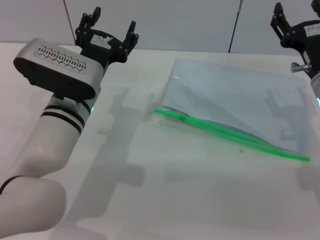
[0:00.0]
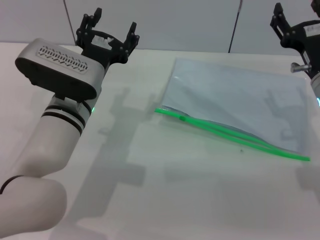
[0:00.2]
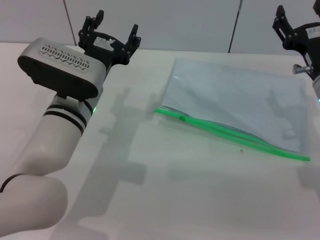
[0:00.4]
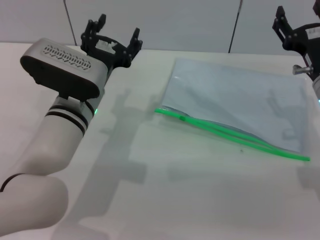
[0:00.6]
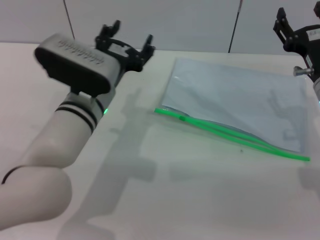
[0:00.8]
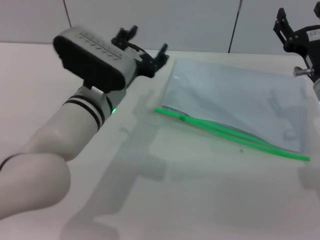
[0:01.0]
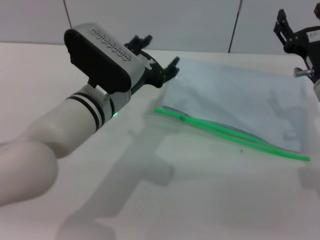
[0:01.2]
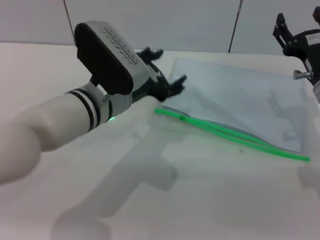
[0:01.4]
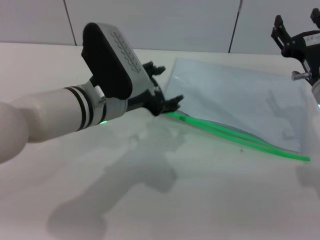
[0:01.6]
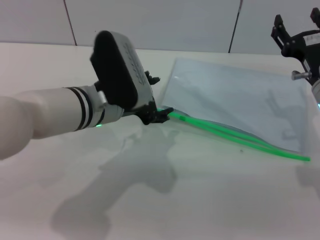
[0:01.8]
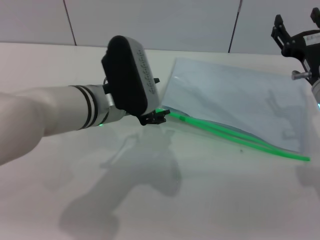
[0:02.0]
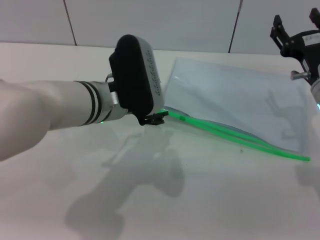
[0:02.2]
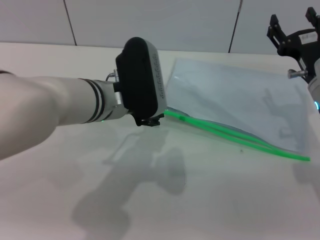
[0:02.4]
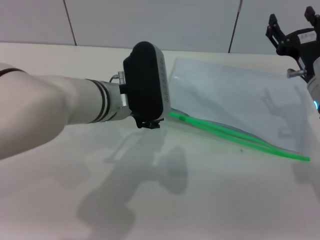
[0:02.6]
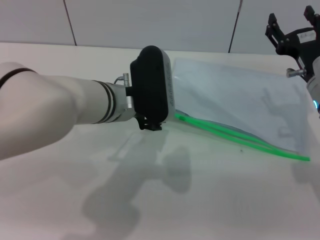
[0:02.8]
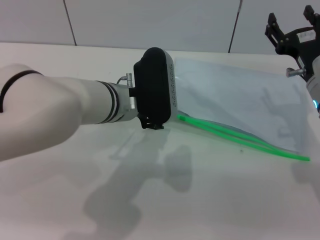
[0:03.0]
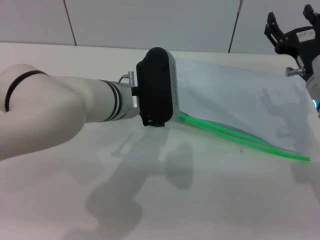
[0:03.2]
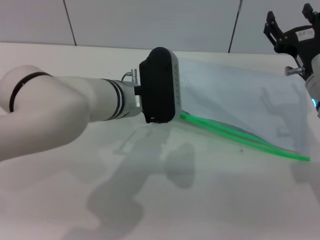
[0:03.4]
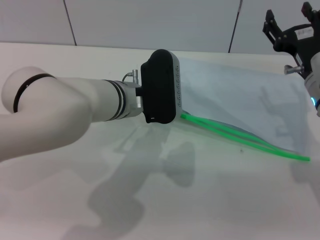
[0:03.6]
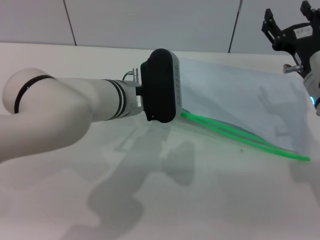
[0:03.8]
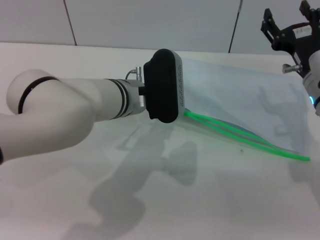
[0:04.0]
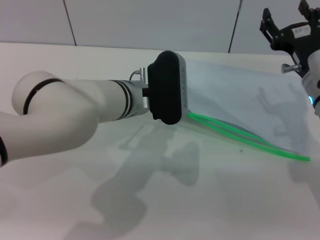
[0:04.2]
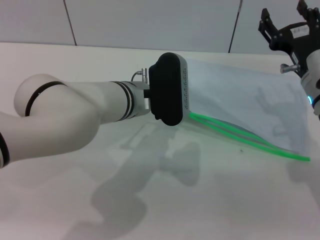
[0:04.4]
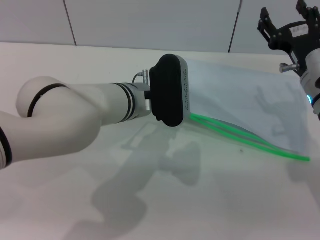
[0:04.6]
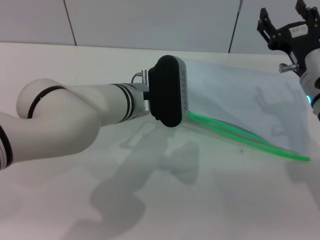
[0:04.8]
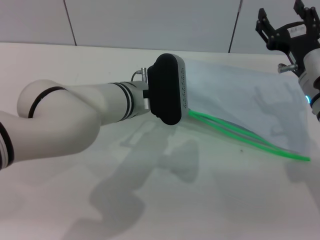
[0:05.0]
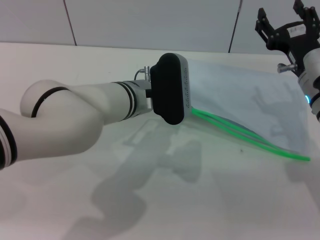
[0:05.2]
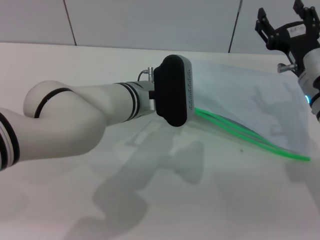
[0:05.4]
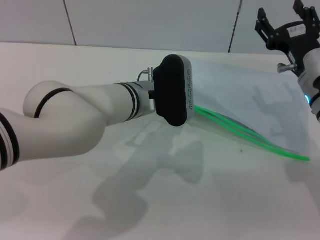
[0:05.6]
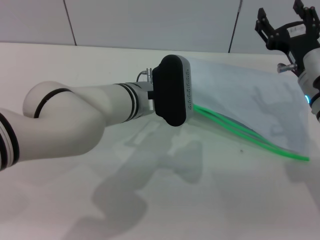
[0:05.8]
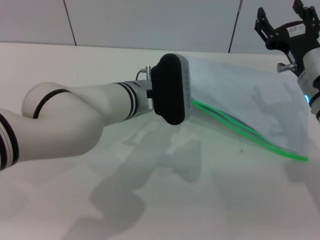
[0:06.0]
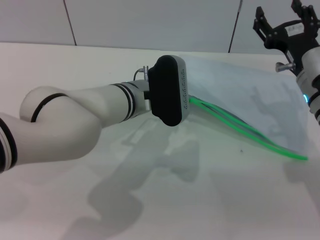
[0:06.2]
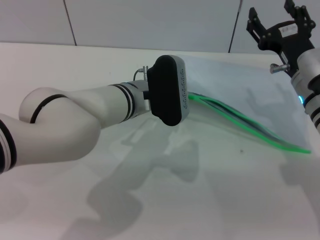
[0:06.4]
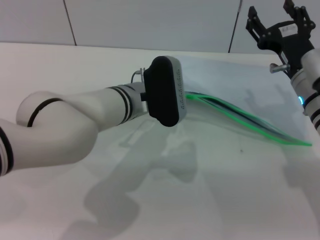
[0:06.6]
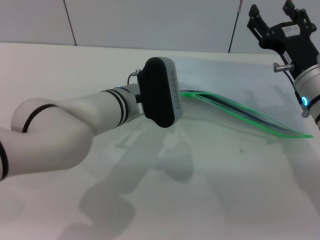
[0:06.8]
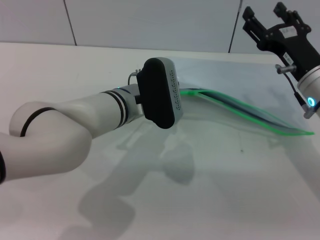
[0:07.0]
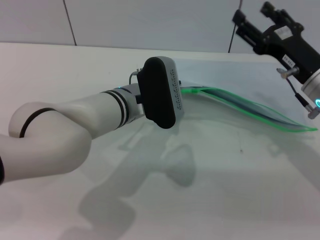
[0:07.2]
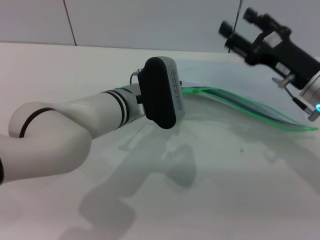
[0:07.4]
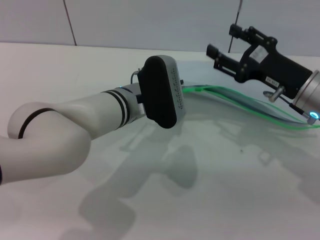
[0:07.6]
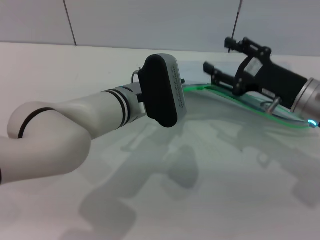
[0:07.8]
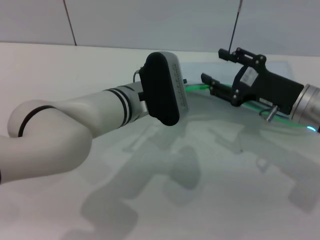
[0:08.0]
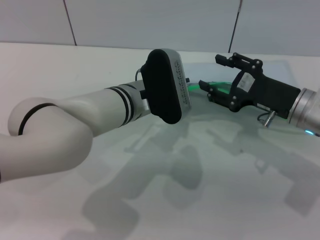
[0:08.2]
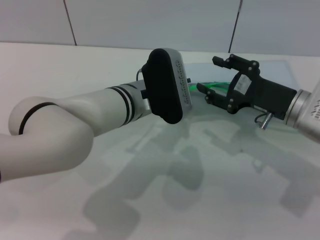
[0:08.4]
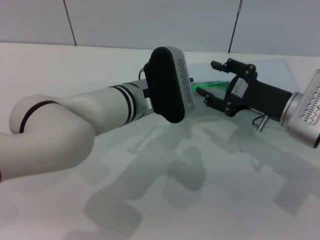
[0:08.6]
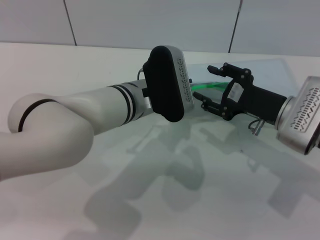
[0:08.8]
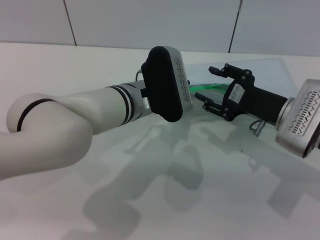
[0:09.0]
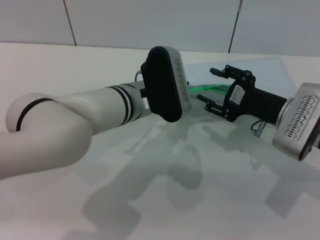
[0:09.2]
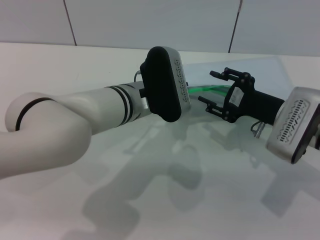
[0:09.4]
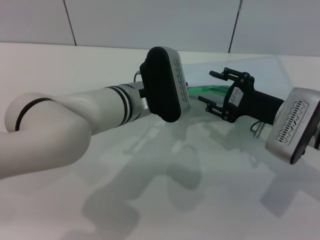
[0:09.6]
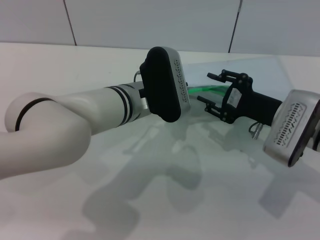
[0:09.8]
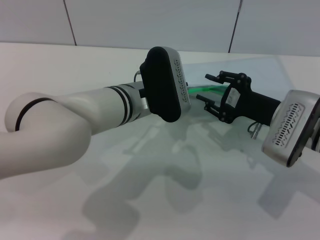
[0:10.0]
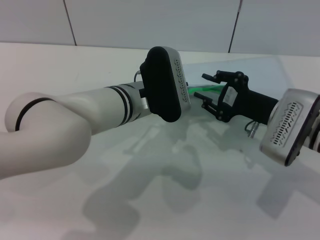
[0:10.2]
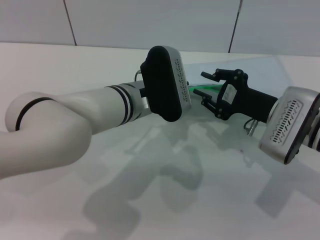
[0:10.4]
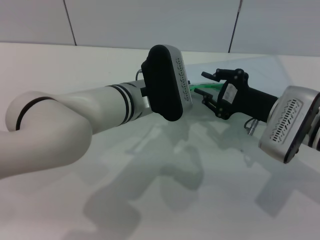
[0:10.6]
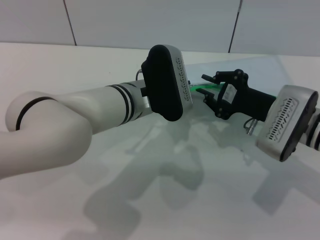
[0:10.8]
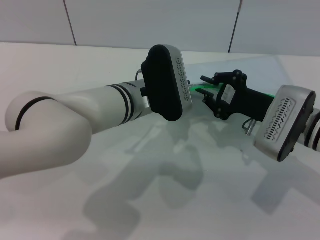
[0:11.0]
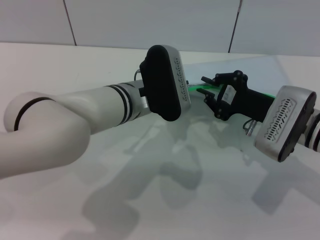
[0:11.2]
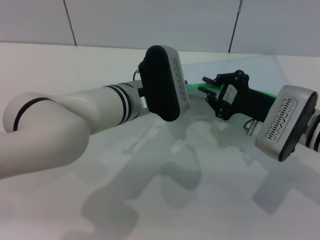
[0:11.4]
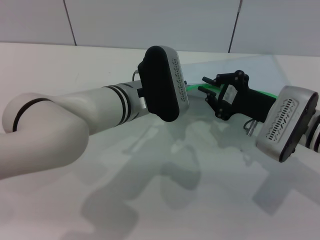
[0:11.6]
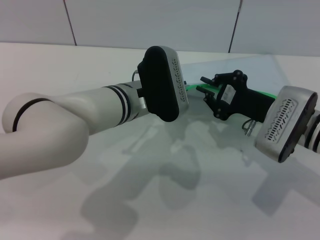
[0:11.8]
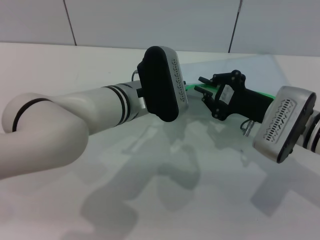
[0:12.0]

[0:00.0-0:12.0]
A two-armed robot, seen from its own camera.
Step, 0:00.0 to 0:07.0: Pick up the transparent plastic bag with the left gripper.
0:03.0 to 0:04.4: The grippers make only small movements.
0:04.4 to 0:06.0: The left gripper closes up.
0:06.0 to 0:07.6: The left gripper closes.
0:09.0 to 0:10.4: The grippers make only small movements.
0:10.4 to 0:12.0: The right gripper closes its fingers.

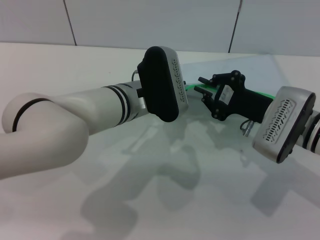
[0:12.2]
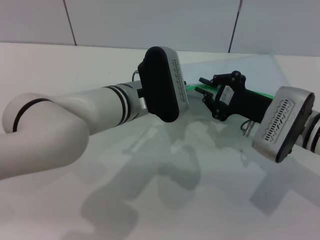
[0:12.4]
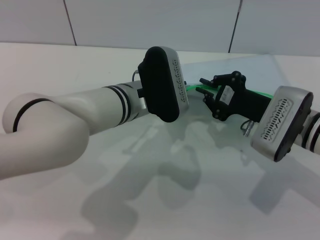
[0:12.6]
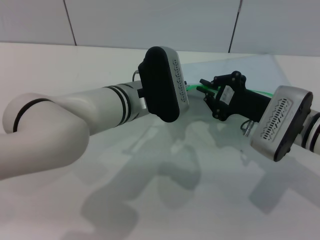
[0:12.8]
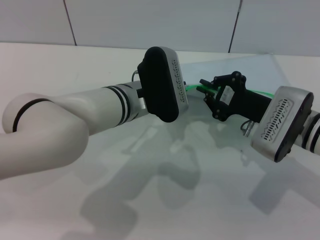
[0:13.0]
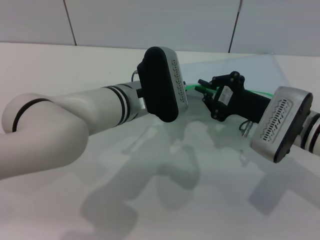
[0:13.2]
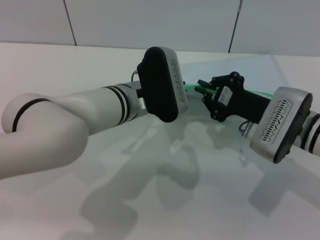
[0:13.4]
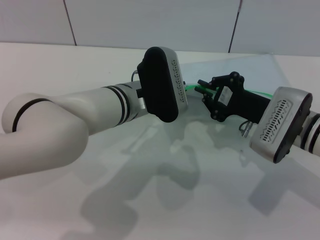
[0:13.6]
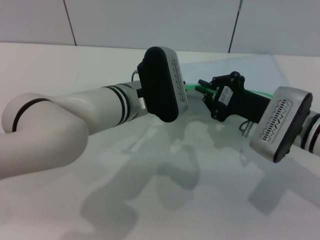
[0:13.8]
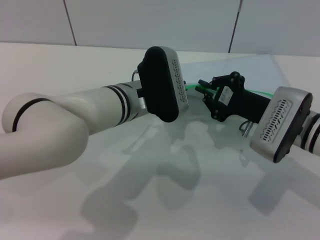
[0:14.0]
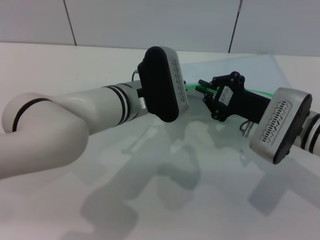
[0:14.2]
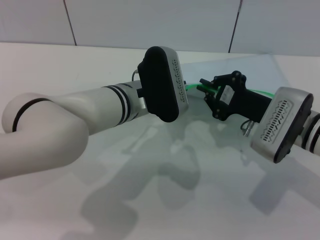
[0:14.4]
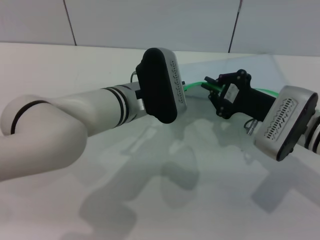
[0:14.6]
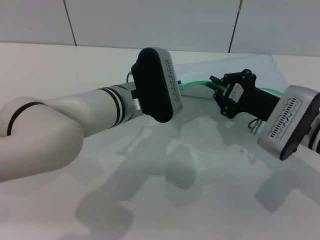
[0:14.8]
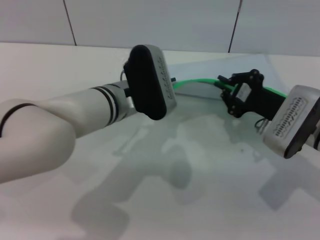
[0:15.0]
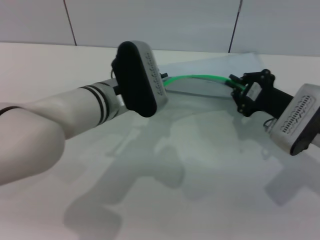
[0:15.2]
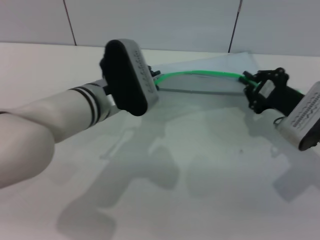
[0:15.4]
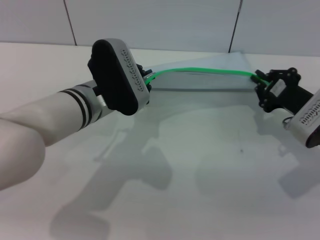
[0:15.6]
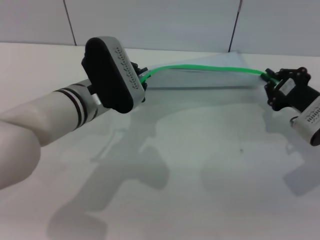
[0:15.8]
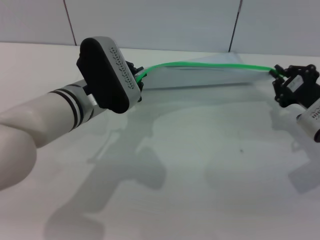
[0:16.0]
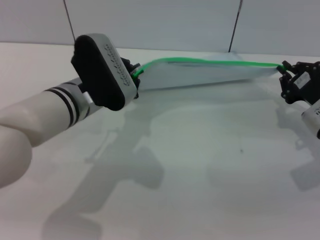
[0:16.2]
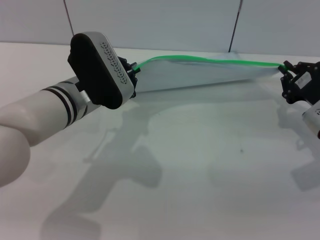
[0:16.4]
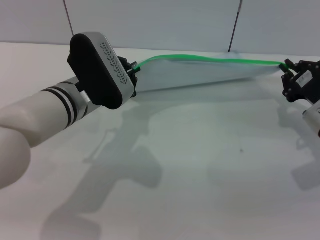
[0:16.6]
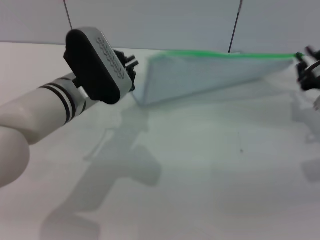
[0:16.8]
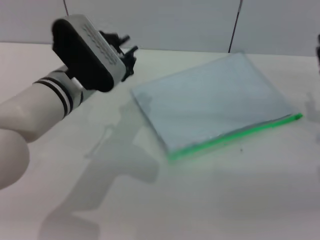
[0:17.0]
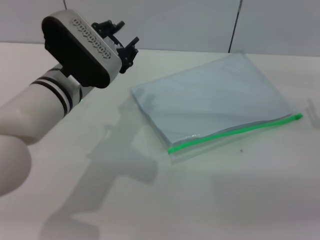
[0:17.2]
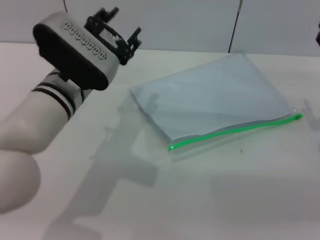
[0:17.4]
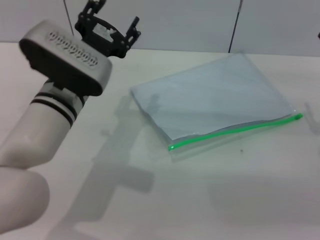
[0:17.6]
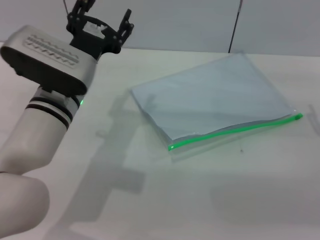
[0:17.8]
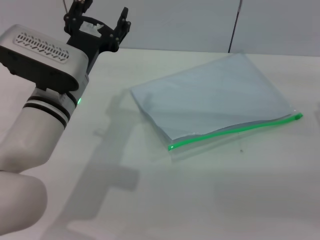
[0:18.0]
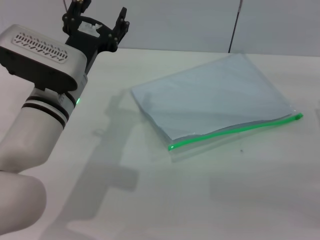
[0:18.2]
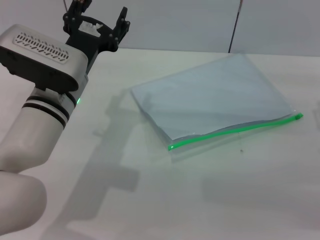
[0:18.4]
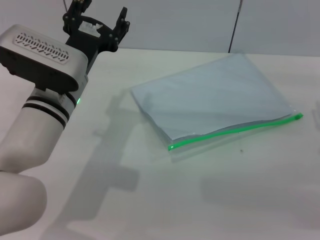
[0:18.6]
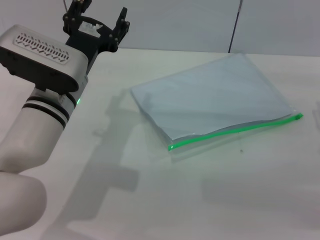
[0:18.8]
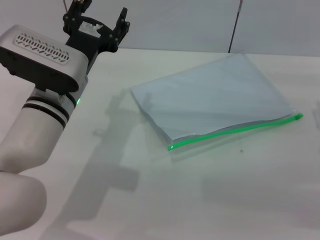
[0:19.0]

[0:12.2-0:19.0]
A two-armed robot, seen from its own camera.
Step, 0:12.2 to 0:17.0: Pulling up the zipper on the transparent plastic bag with the right gripper to close it.
Step, 0:17.2 to 0:17.8: Place the transparent plastic bag.
0:12.2 to 0:13.6: The two grippers keep their place.
0:13.6 to 0:15.0: The grippers make only small movements.
0:15.0 to 0:16.2: The right gripper moves to the right, approximately 5 cm; the left gripper ends up approximately 5 cm from where it was.
0:16.2 to 0:17.6: The left gripper opens up. Meanwhile the right gripper opens up.
0:17.6 to 0:19.0: There are only small adjustments of the grippers.
